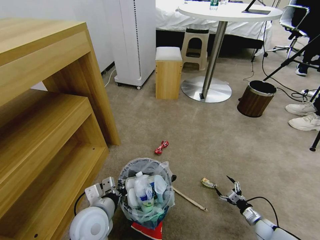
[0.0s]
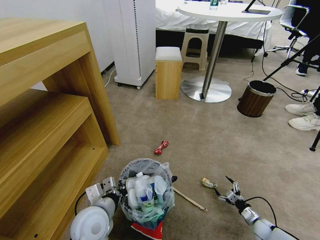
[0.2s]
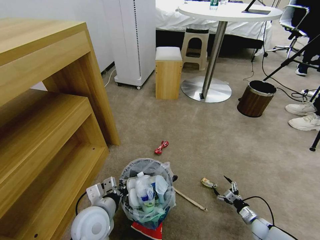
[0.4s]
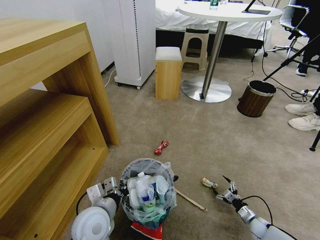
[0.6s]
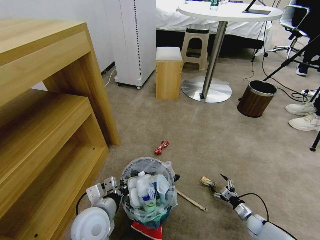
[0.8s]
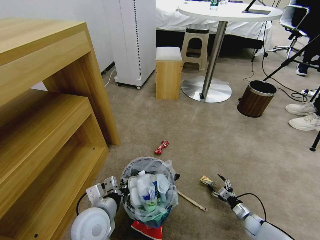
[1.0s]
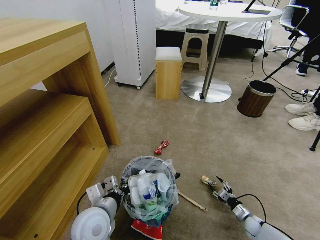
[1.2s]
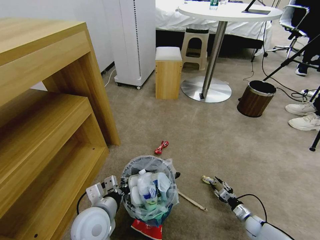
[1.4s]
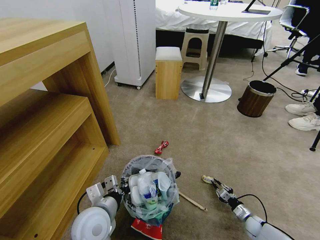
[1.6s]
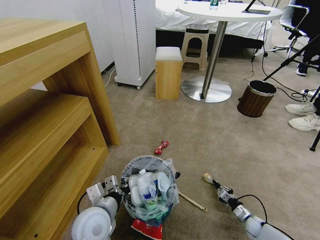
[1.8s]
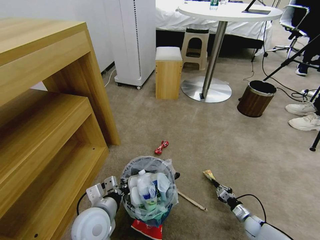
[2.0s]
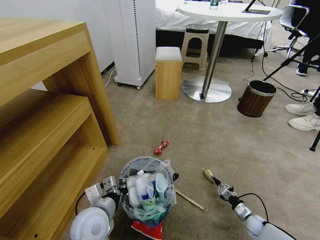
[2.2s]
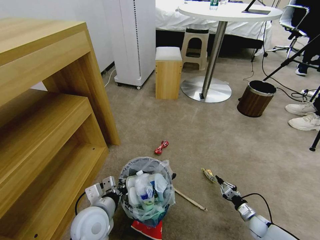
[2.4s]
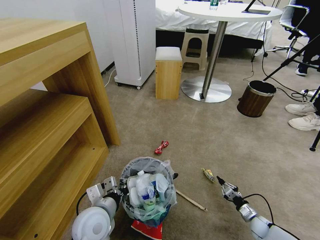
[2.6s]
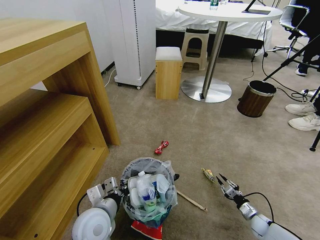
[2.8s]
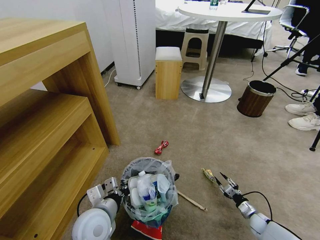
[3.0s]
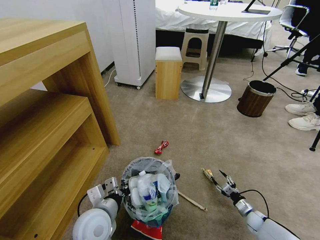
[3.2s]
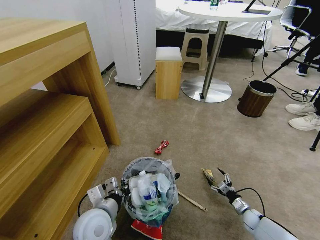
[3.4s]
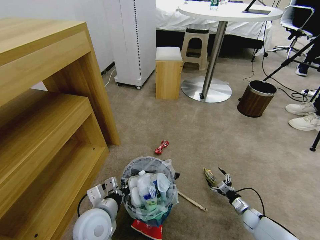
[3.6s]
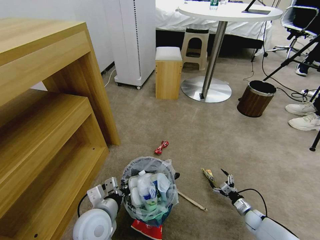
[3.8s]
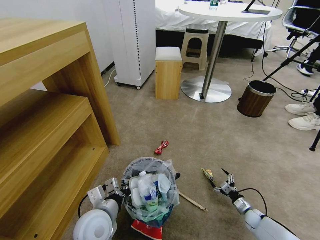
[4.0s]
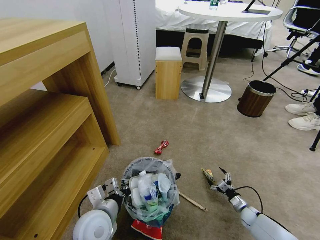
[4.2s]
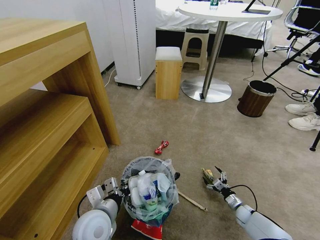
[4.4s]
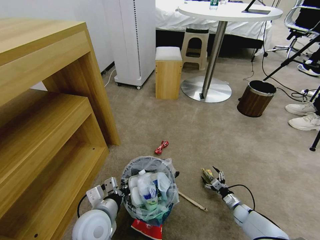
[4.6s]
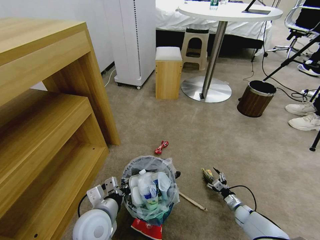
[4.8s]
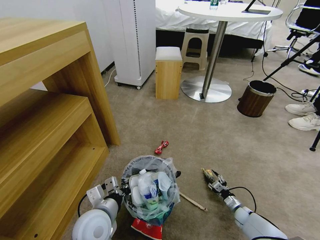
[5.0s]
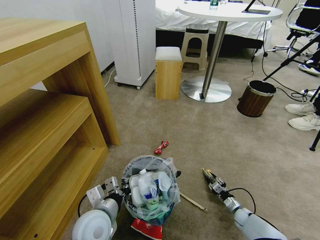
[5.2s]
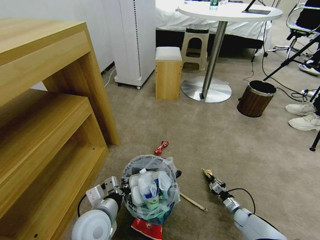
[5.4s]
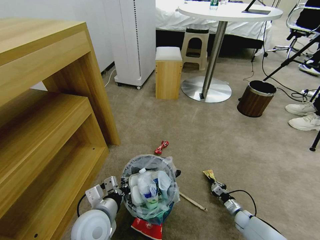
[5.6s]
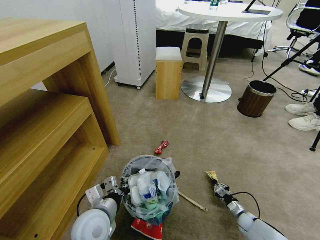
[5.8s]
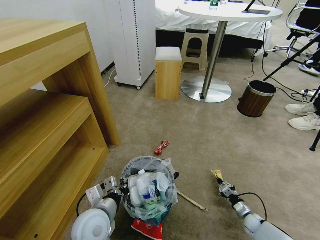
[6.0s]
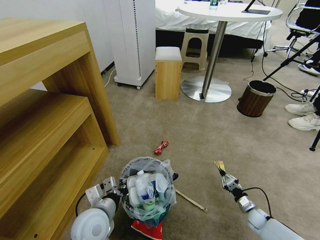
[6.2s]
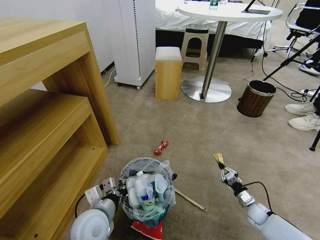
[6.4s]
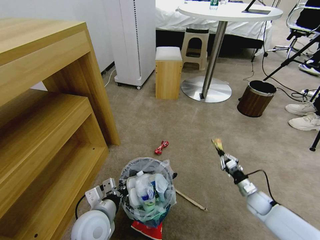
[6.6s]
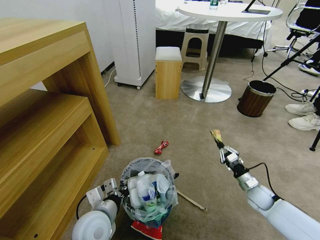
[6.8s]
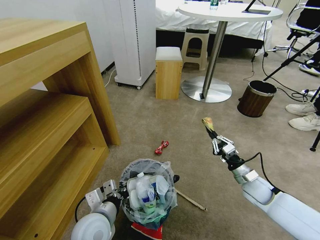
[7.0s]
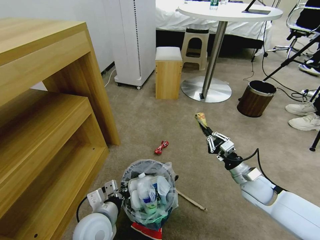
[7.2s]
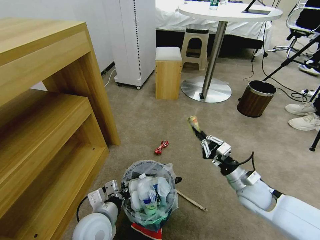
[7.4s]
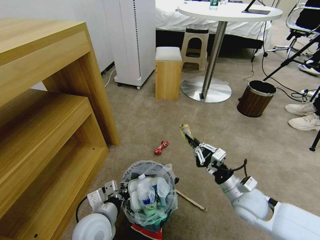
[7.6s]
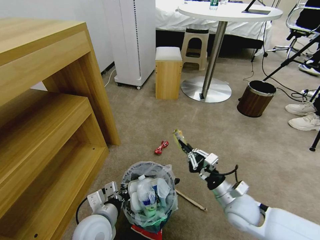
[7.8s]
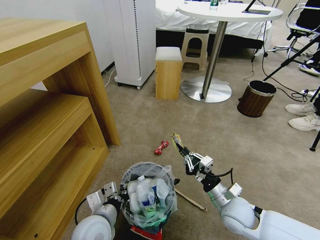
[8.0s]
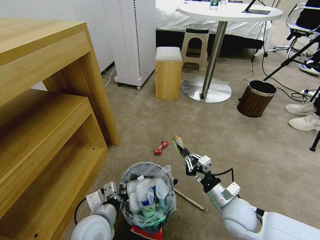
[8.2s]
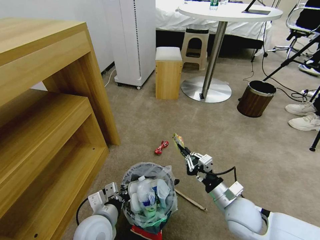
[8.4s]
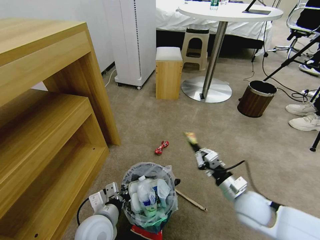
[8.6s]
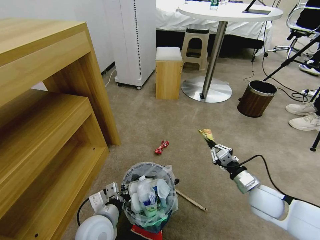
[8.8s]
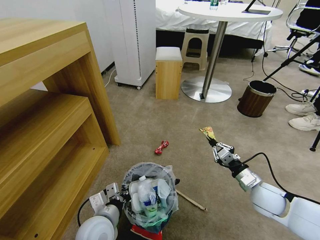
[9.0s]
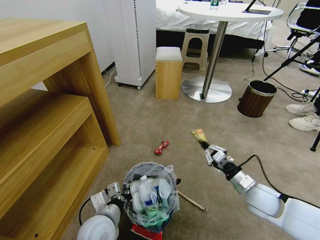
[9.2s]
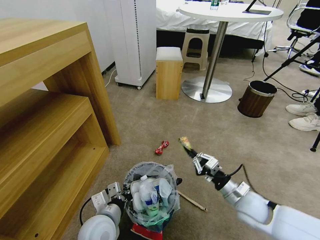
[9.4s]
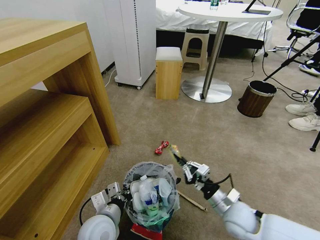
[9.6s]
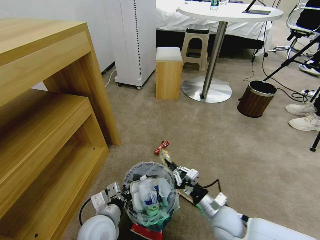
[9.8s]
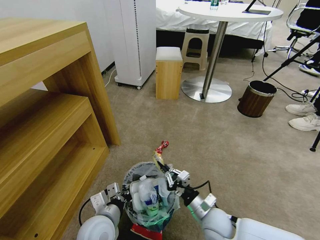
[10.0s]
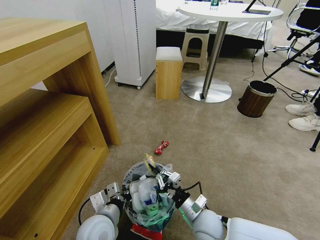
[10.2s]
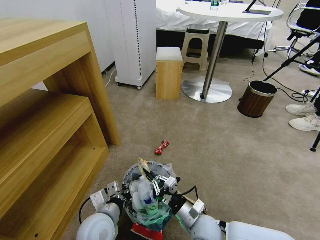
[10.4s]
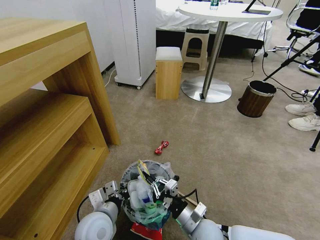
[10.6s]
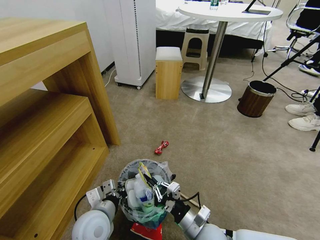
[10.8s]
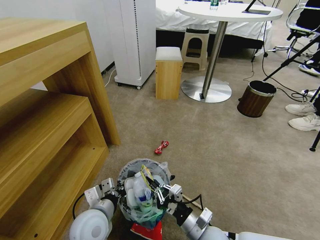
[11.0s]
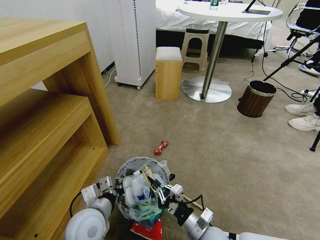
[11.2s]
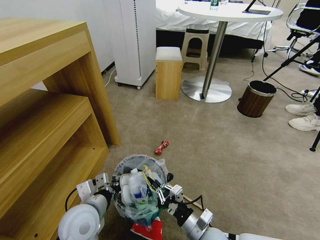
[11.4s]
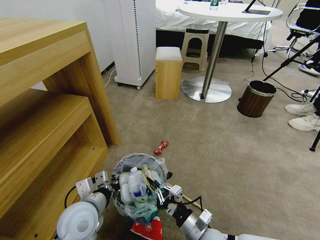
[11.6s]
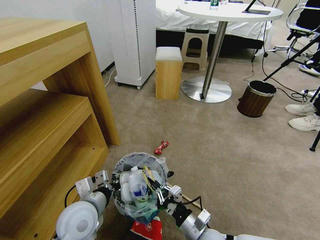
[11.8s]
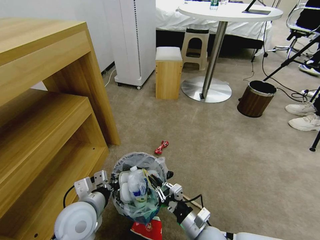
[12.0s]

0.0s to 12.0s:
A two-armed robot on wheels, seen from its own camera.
Task of the whole recording: Pick up the trash bin and place the garbage on the floor into it.
0.0s to 1.6s: The right gripper closes.
1.6s to 3.0s: There are only small adjustments of the grippers.
3.0s to 4.4s: The right gripper changes place by roughly 5 cm, and opens up.
4.4s to 6.0s: The right gripper closes up.
6.0s to 7.6s: The right gripper travels upward and to the left by roughly 35 cm.
7.6s to 9.0s: The right gripper travels to the right by about 5 cm.
9.0s to 10.4s: The right gripper is displaced to the left and backward by about 20 cm.
10.4s to 12.0s: The left gripper is displaced upward by approximately 5 cm.

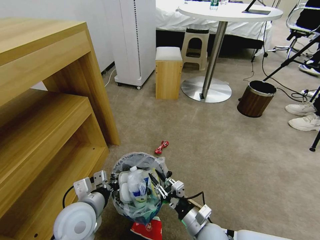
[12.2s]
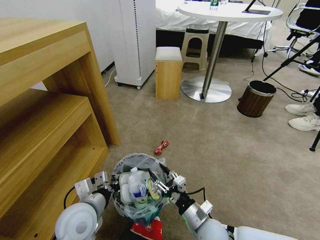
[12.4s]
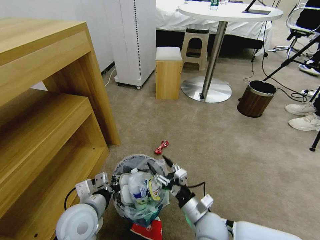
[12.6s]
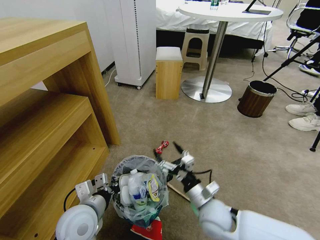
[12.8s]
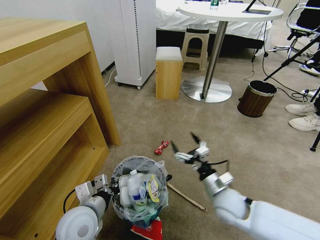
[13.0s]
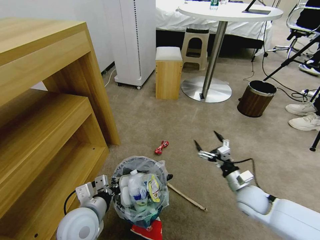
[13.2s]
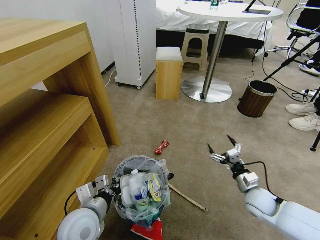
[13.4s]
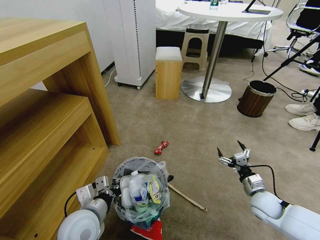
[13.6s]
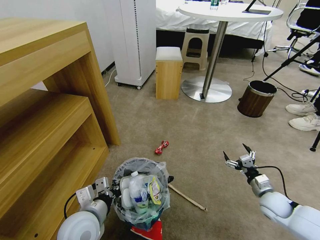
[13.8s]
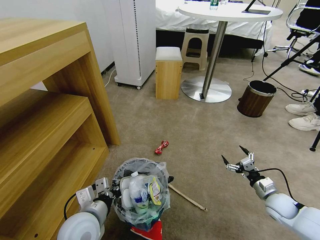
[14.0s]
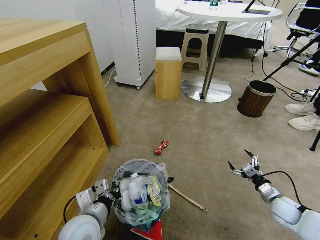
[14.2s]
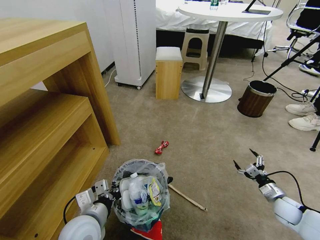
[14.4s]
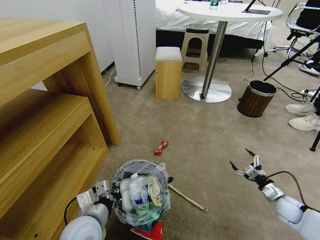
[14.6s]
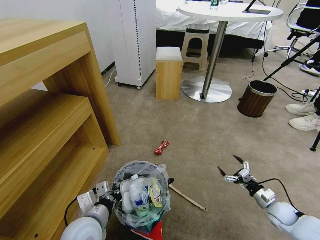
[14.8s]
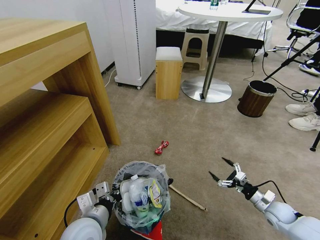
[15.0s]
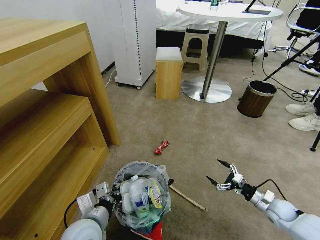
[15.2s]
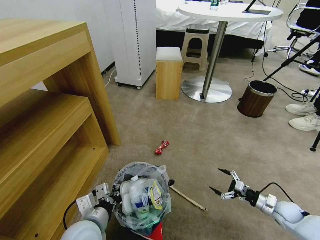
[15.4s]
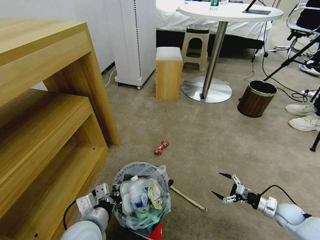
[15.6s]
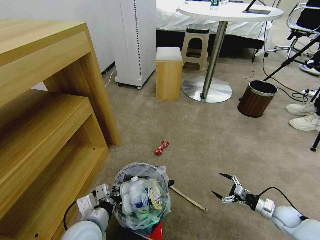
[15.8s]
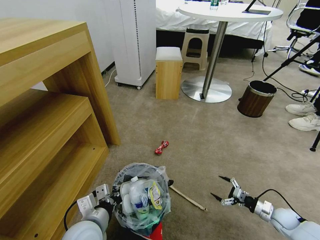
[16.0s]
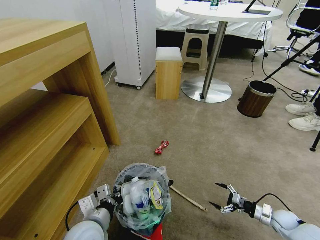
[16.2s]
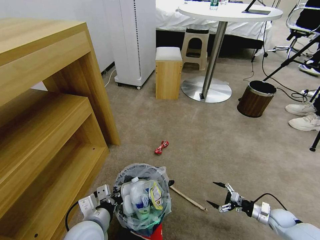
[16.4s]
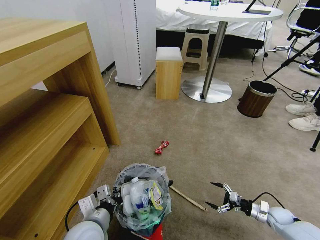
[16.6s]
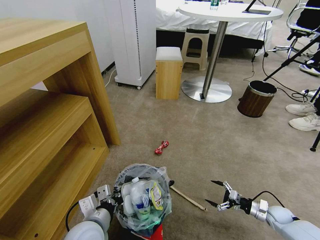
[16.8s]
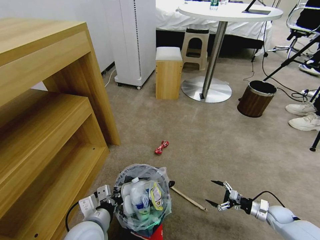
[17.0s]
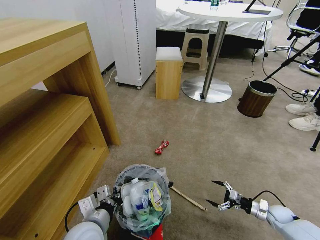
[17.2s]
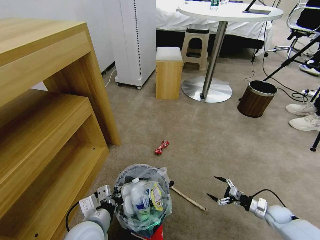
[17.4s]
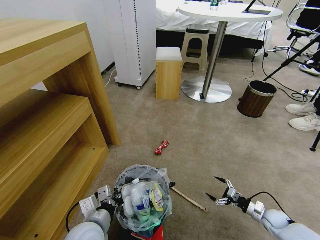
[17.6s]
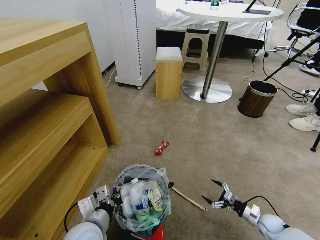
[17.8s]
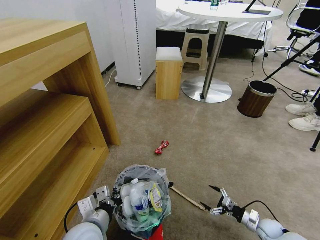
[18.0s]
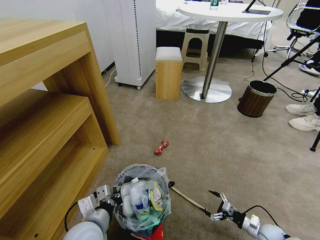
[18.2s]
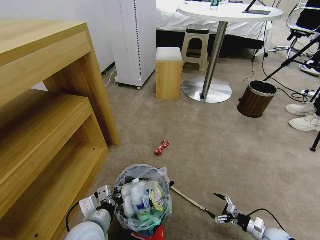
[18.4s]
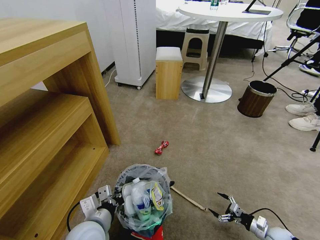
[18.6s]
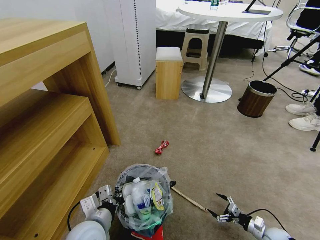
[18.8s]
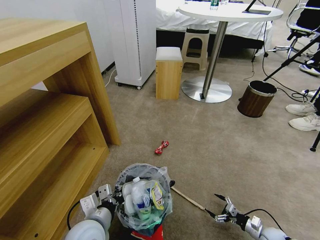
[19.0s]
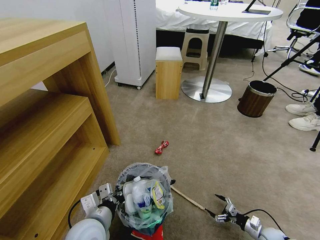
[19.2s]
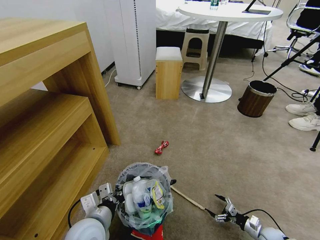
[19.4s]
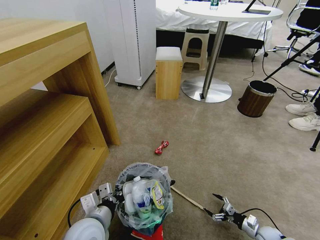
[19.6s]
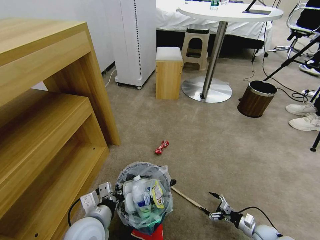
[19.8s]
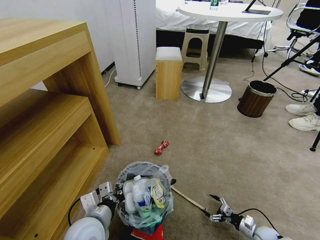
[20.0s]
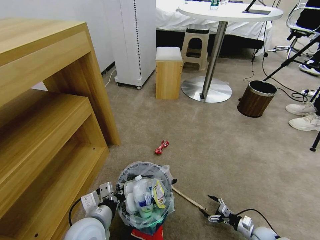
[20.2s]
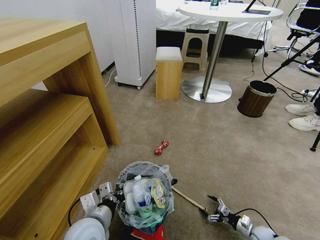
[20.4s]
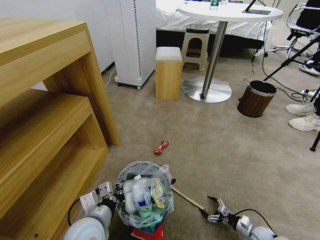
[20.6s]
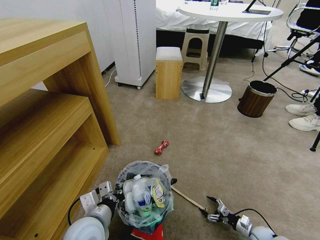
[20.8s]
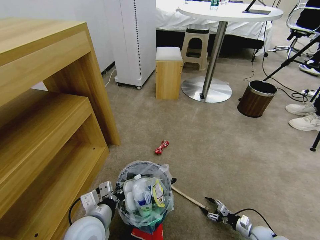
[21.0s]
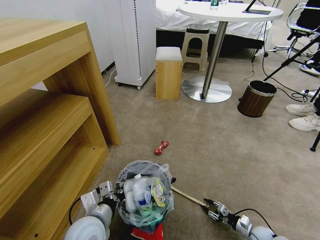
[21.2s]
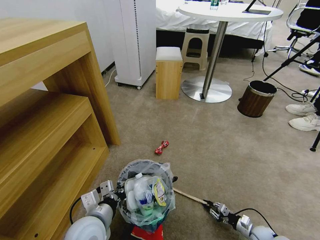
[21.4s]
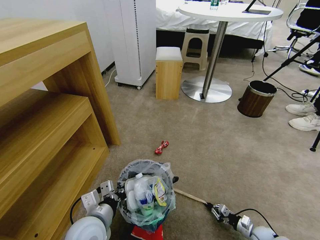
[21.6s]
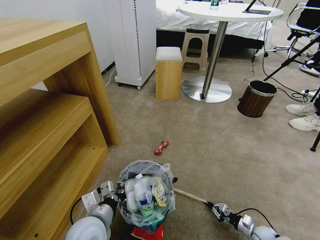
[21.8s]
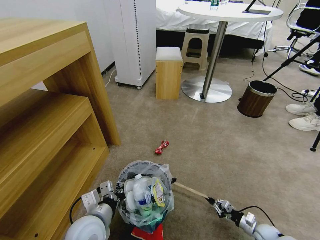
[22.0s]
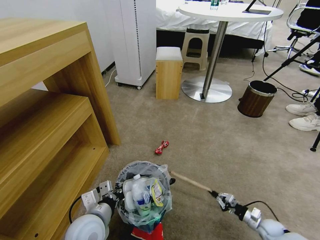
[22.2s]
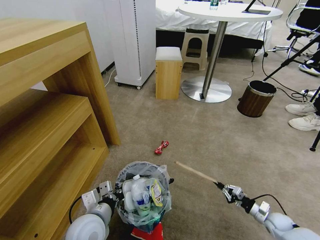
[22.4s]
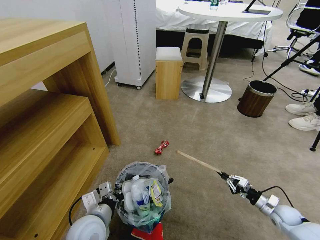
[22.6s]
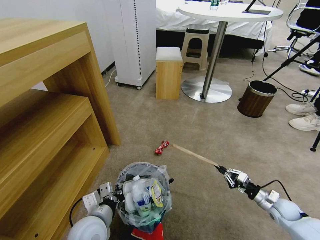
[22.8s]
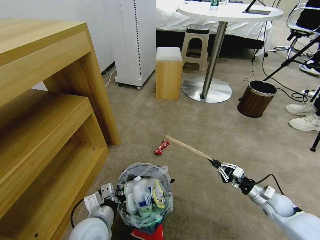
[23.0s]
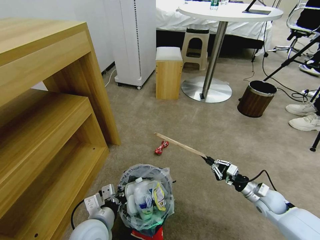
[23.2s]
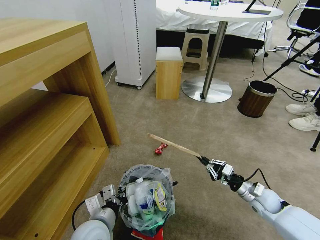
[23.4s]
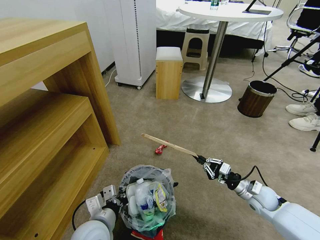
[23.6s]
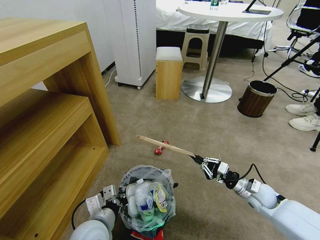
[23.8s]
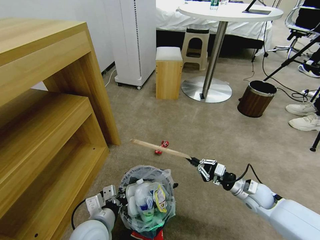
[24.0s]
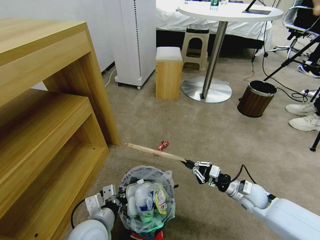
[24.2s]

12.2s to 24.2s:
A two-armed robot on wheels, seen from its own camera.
Task of the whole recording: Pick up the trash bin and place the garbage on the floor into it.
12.2s to 13.8s: The right gripper travels to the right and forward by some 30 cm, and opens up.
13.8s to 15.2s: The right gripper travels to the right by some 5 cm.
15.2s to 16.6s: The right gripper is displaced downward by roughly 5 cm.
16.6s to 18.2s: The right gripper goes about 5 cm backward.
18.2s to 19.8s: The grippers make only small movements.
19.8s to 21.2s: The right gripper closes up.
21.2s to 22.6s: The right gripper goes about 10 cm upward, and closes its fingers.
22.6s to 24.2s: The right gripper goes some 20 cm to the left and upward.
